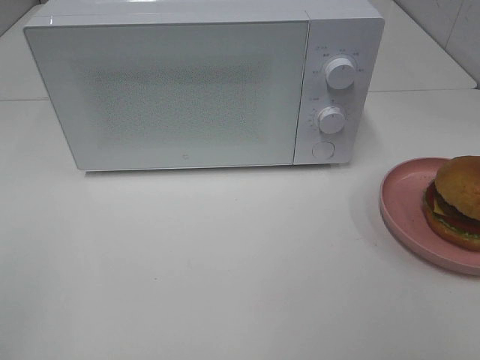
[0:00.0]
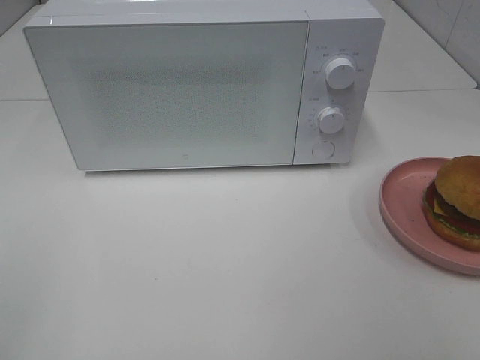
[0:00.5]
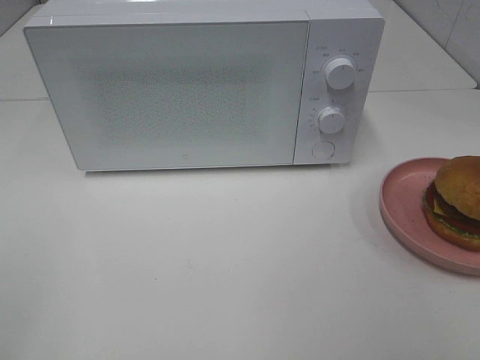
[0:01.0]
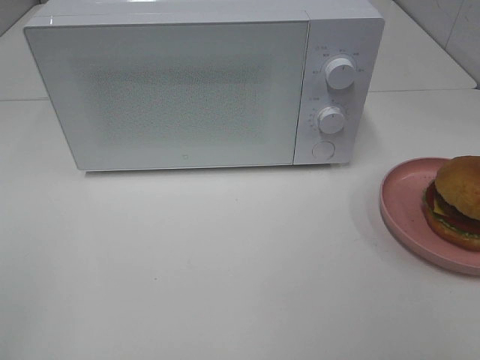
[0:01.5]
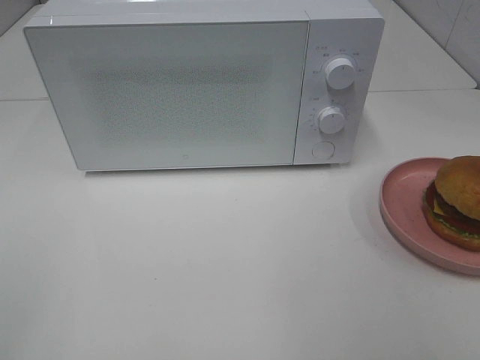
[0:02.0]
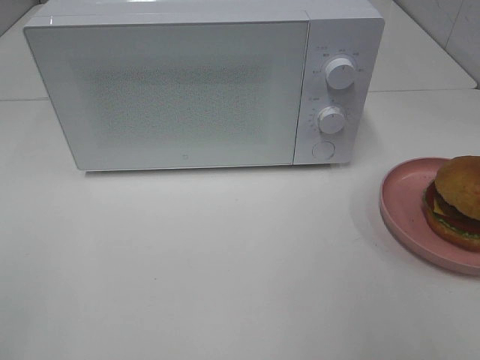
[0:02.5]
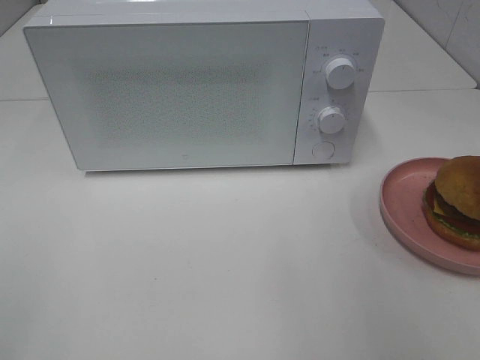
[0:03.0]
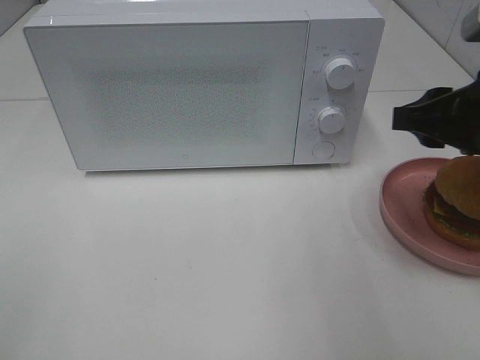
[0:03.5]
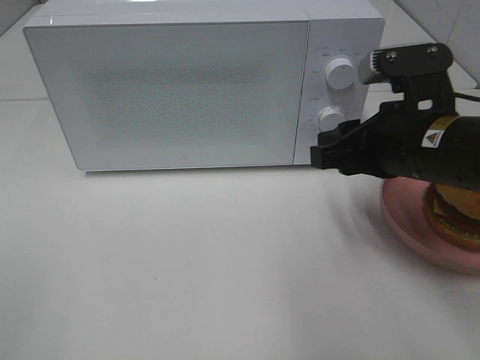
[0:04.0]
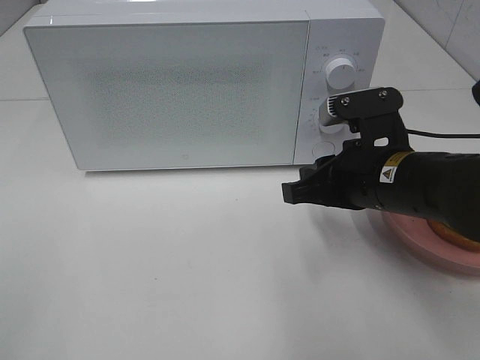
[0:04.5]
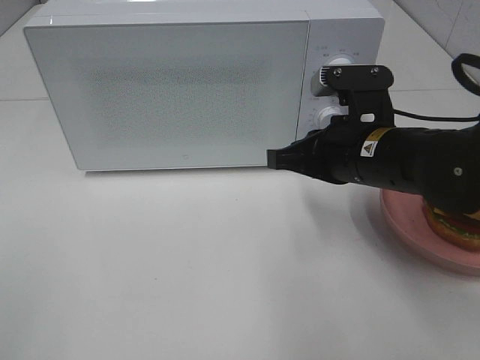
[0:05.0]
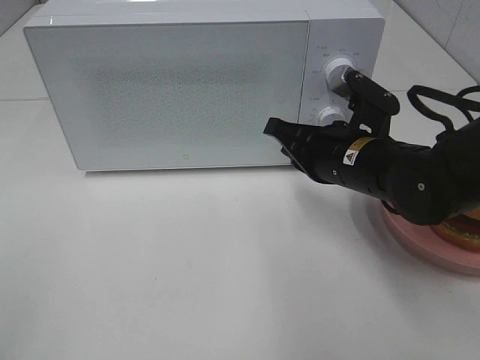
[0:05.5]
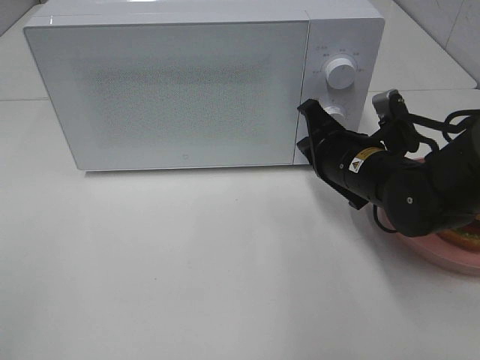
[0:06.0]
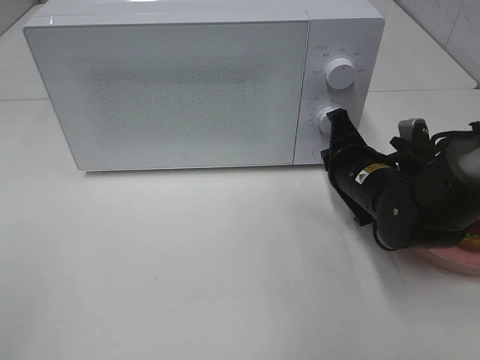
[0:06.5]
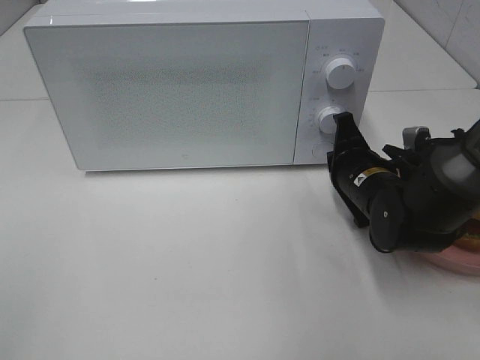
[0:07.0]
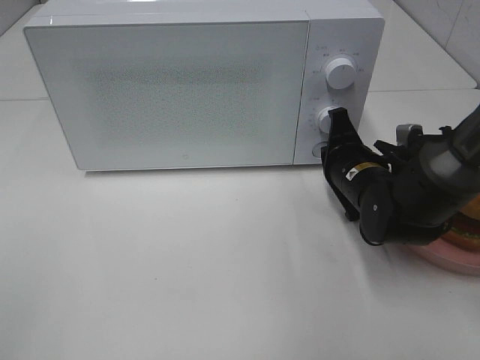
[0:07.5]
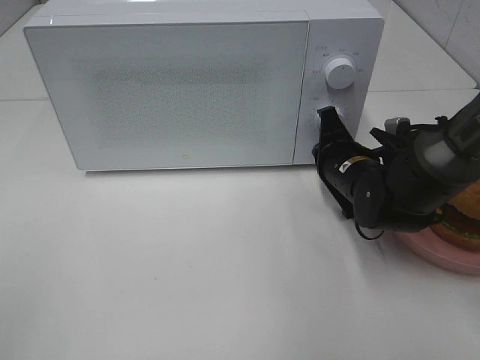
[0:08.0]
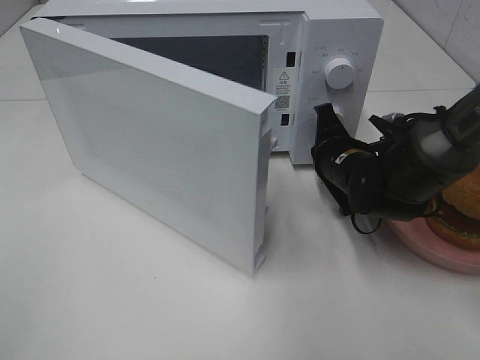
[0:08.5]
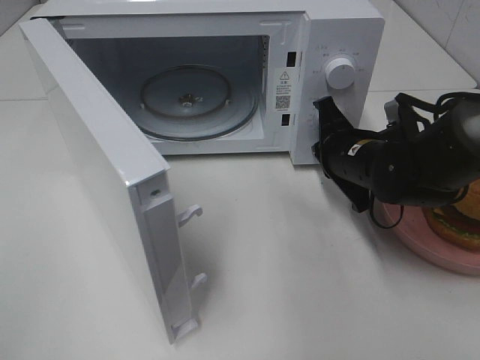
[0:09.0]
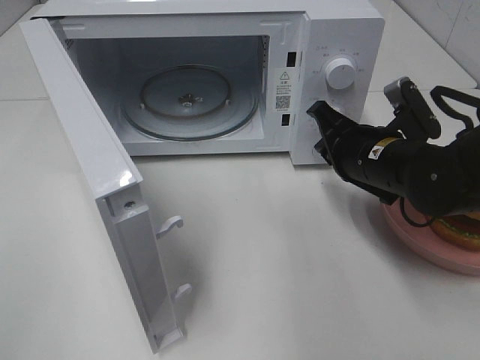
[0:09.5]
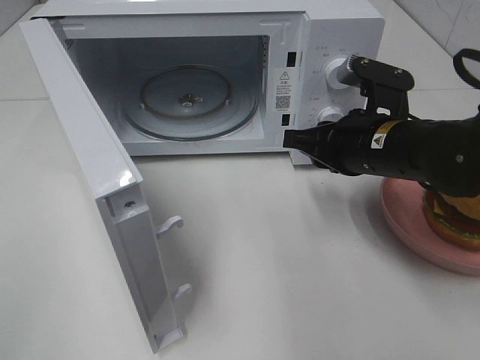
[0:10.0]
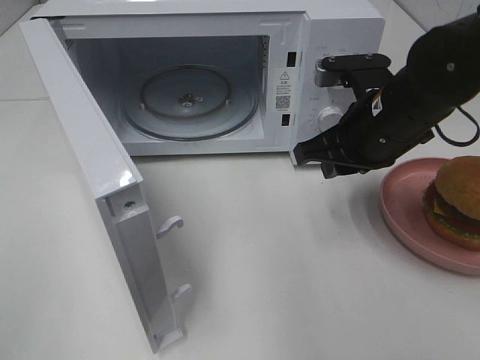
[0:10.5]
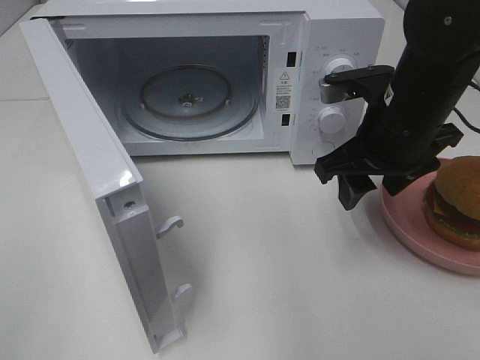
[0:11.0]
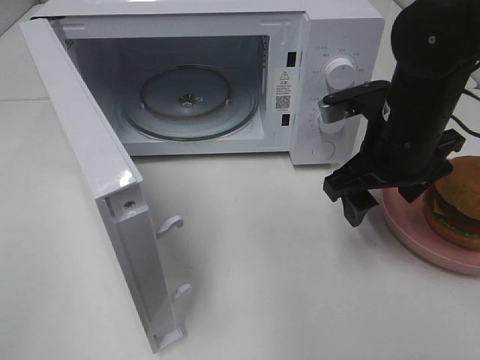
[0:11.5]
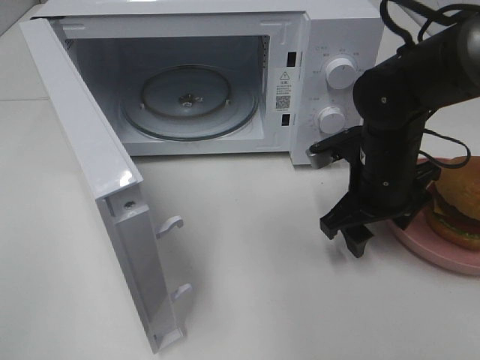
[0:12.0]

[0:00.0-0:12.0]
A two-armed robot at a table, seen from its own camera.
Task of the whole recording: Heat the burger.
Step, 0:00.0 to 0:09.0: Right hand: press the switch.
0:02.0 to 0:04.0: The right gripper travels forward, to the left and downward by some 30 cm.
0:04.0 to 0:06.0: The right gripper is displaced downward and forward by approximately 10 cm, and closes its fingers.
0:06.0 to 0:08.0: The right gripper moves some 5 cm.
0:08.0 to 0:10.0: The right gripper moves upward and backward, roughly 10 cm, and opens up.
0:10.0 to 0:12.0: The right gripper opens up.

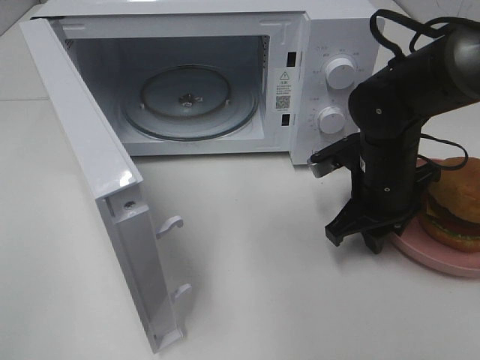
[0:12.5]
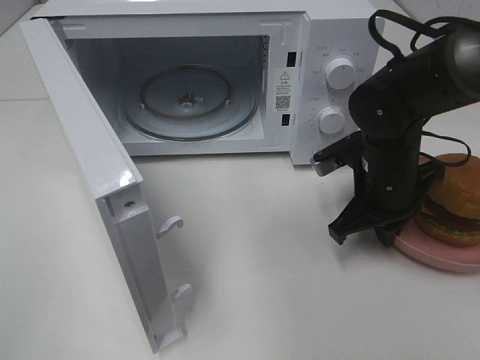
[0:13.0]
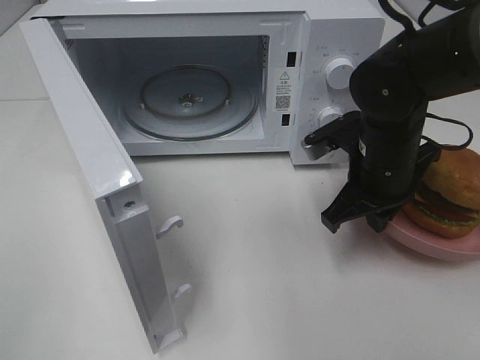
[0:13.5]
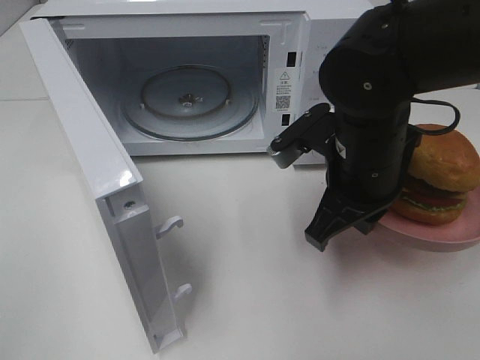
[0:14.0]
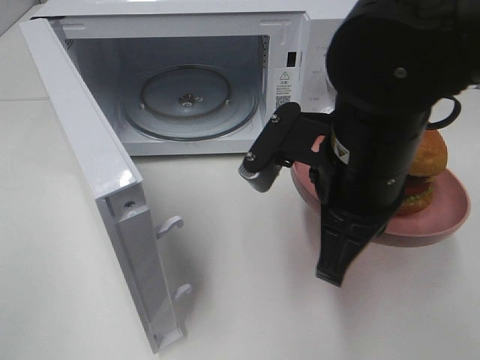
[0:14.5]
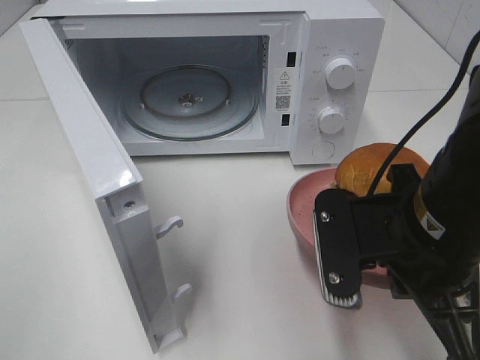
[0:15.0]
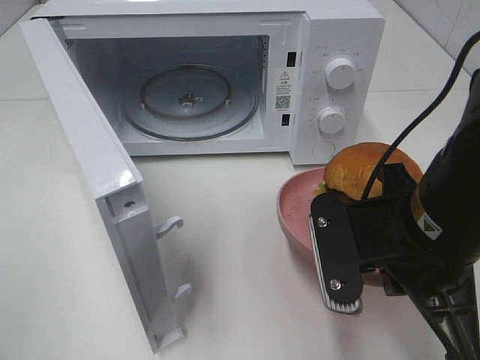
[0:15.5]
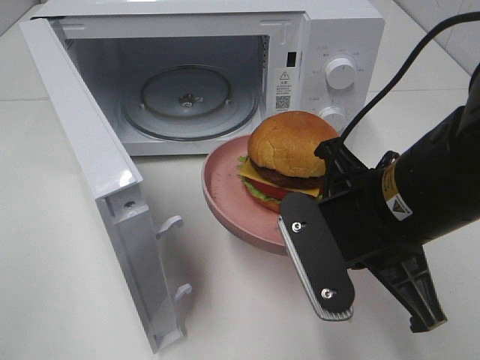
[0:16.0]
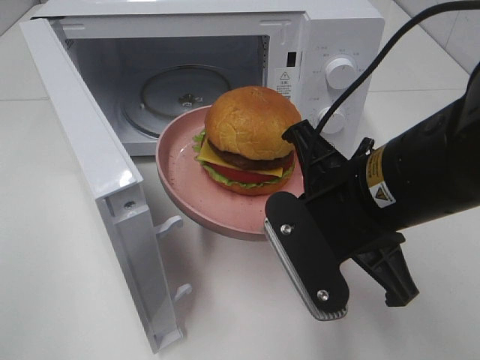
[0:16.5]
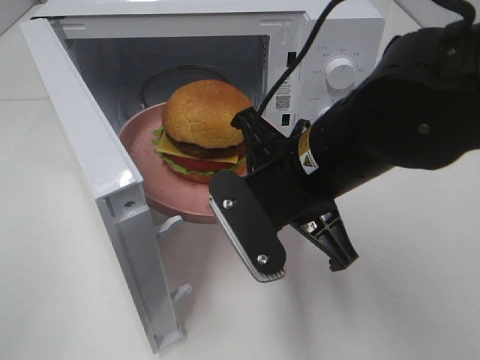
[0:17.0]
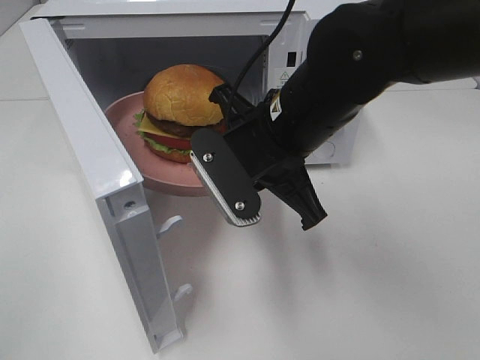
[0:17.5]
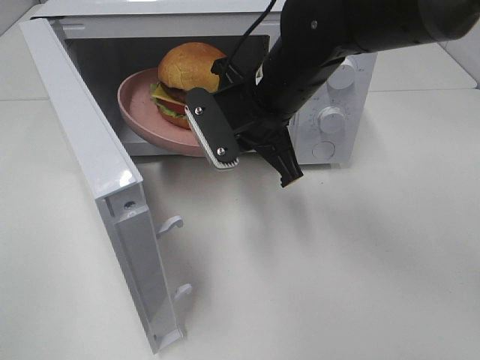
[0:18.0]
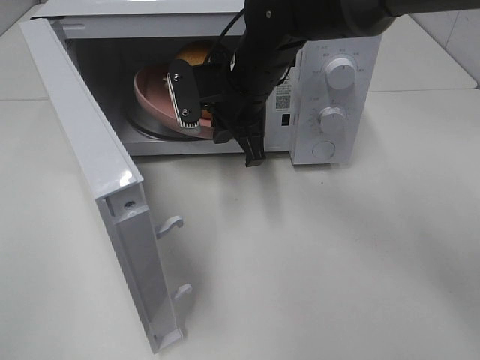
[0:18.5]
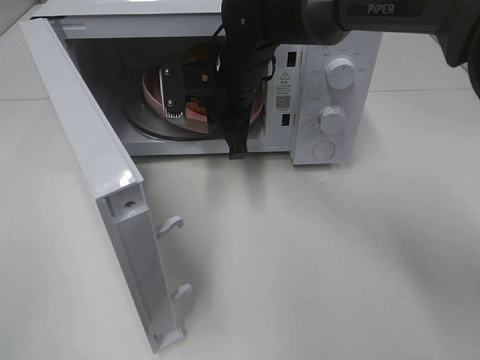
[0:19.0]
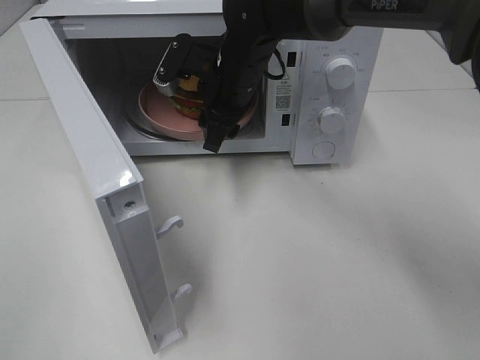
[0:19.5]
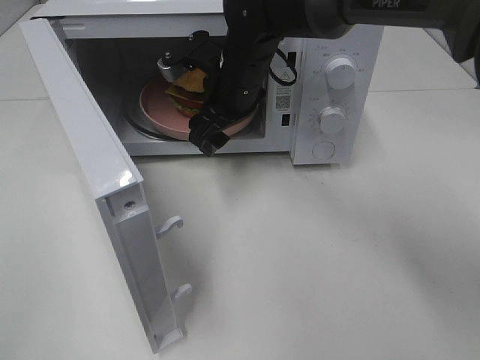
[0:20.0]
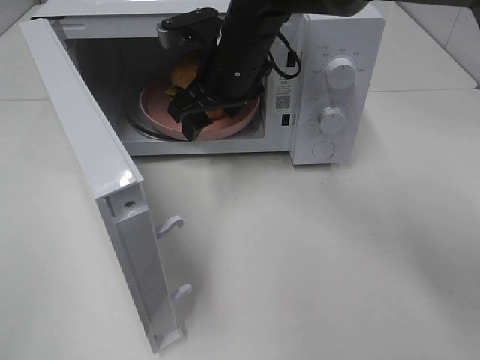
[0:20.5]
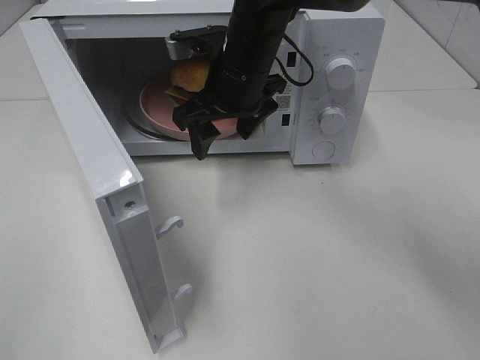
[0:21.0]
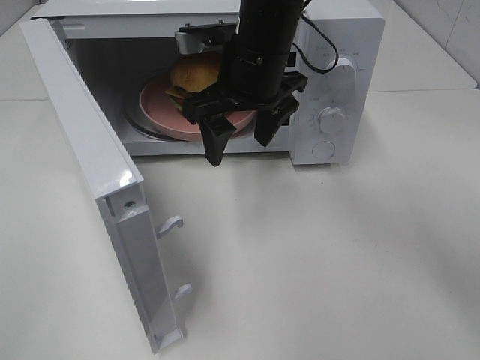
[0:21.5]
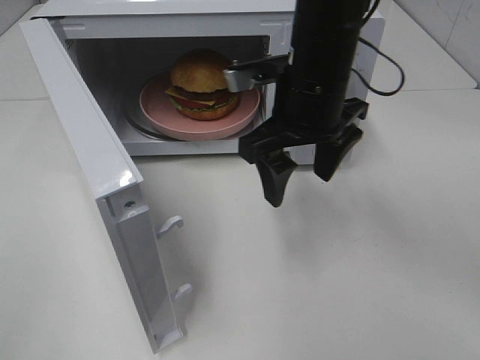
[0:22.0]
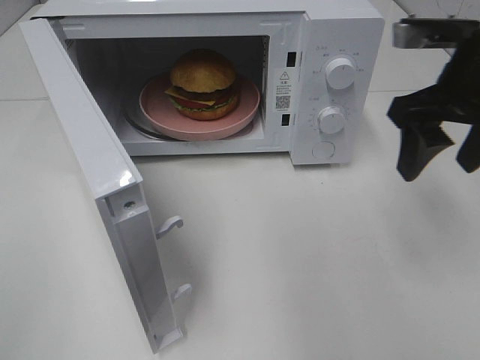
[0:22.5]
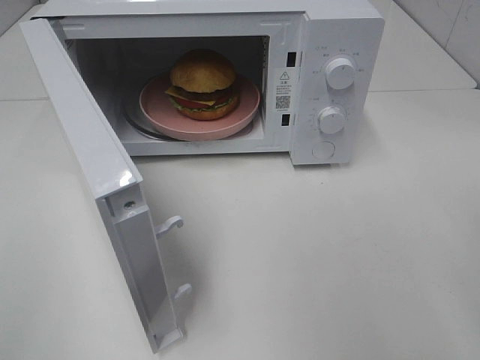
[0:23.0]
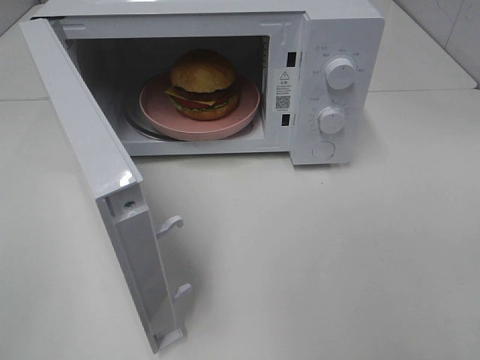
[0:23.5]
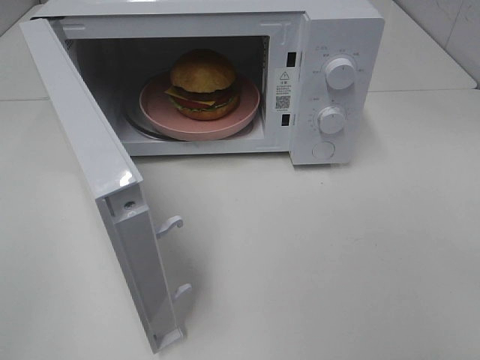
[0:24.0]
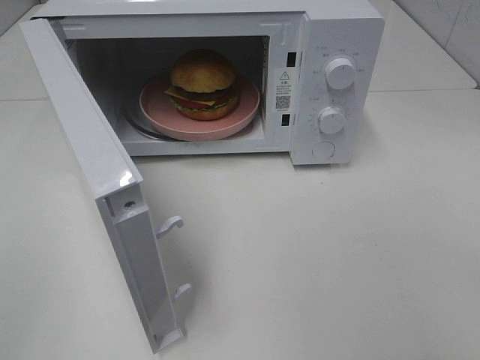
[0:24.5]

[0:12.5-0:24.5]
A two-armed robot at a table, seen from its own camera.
Task of the whole recording: Heat the burger.
Step, 0:13.5 to 0:19.0: Right hand: place the plate in the microwave.
0:12.5 to 0:14.5: The right gripper travels upward, backward and to the left by approximately 15 cm, and closes up.
0:16.5 to 0:18.5: The right gripper heads forward and to the left, covering some 20 cm.
0:18.5 to 0:20.5: The right gripper opens its fingers.
0:20.5 to 0:22.5: The right gripper heads to the right and backward, covering approximately 25 cm.
0:22.5 to 0:24.5: The right gripper travels backward by some 30 cm.

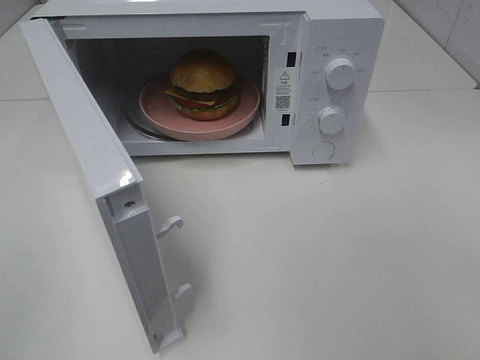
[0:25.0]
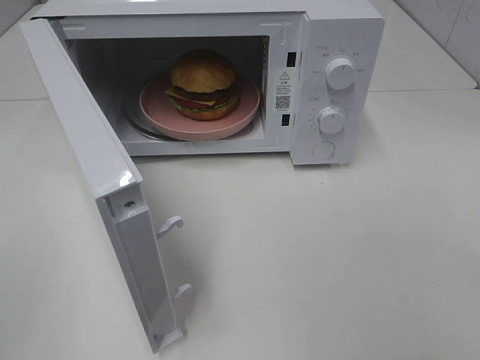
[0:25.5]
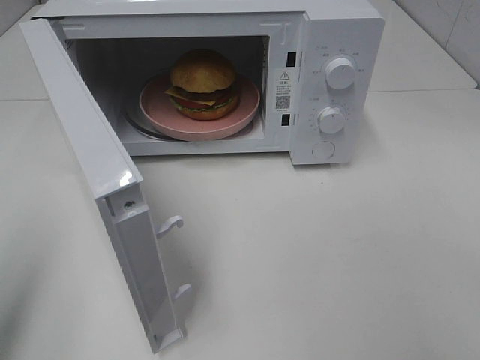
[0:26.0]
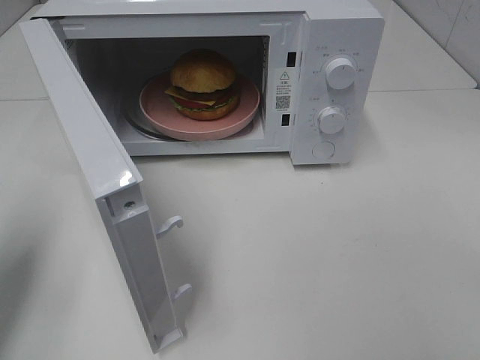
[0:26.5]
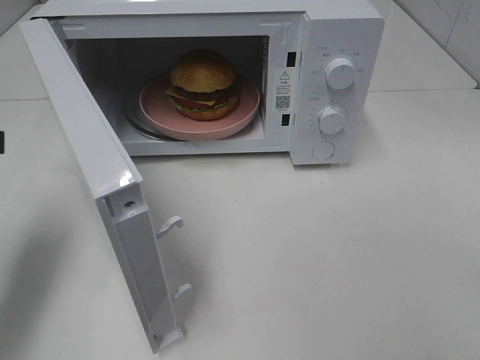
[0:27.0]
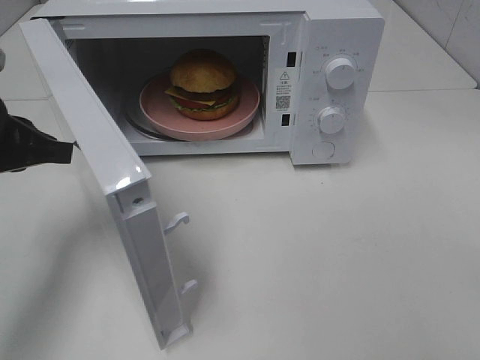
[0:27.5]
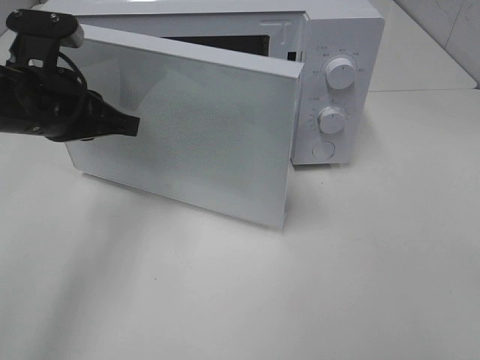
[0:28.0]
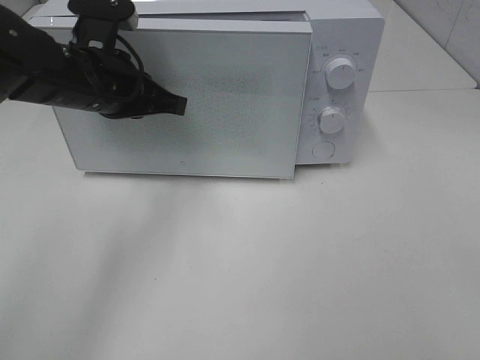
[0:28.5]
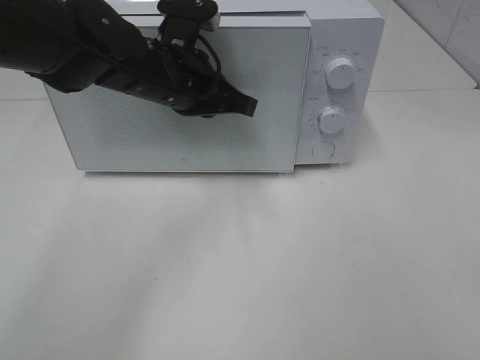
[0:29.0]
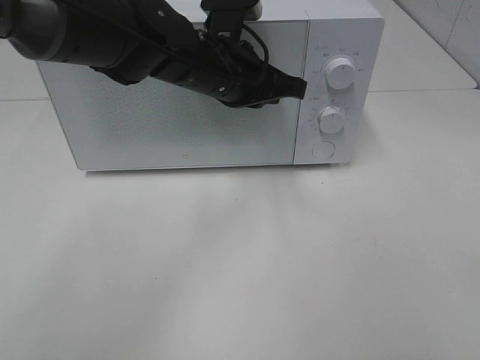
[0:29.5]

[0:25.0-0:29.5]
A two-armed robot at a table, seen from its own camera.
Task of the whole recording: Heat the burger.
0:25.0 to 0:27.0: The left gripper is displaced forward by about 25 cm.
0:27.0 to 0:29.5: The left gripper is displaced to the right and forward by roughly 30 cm.
